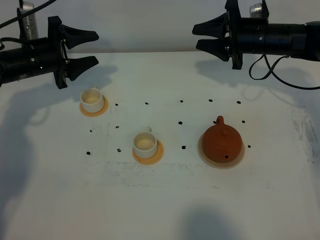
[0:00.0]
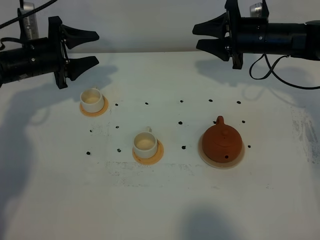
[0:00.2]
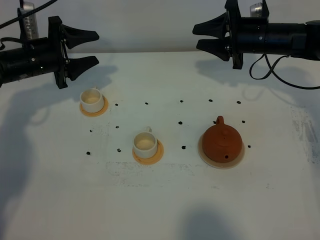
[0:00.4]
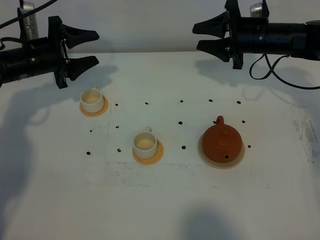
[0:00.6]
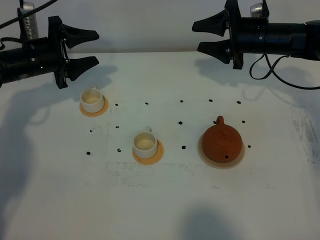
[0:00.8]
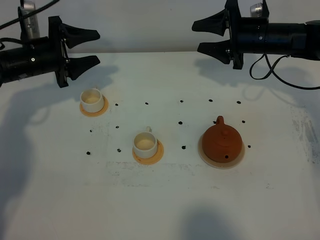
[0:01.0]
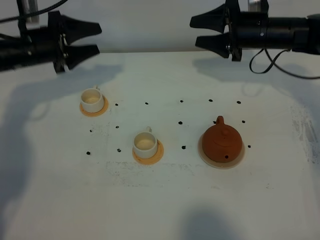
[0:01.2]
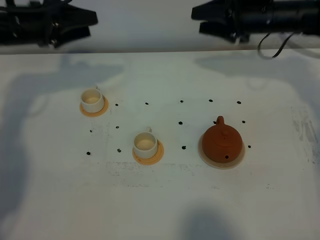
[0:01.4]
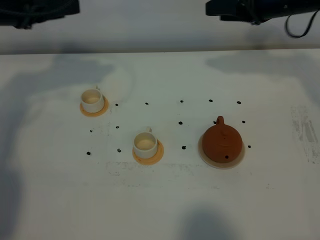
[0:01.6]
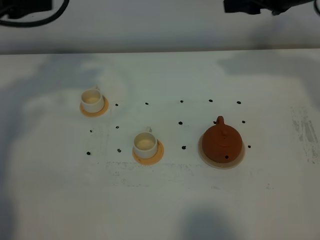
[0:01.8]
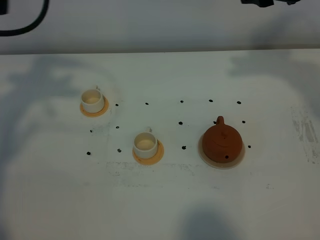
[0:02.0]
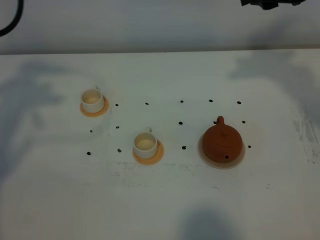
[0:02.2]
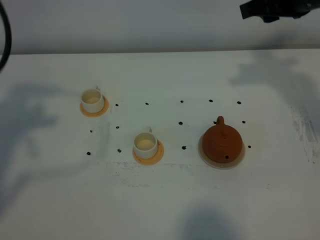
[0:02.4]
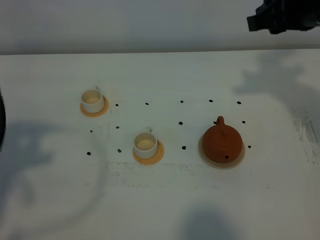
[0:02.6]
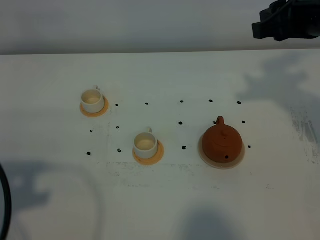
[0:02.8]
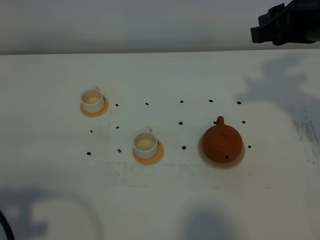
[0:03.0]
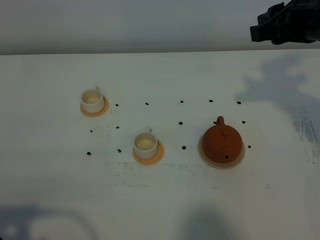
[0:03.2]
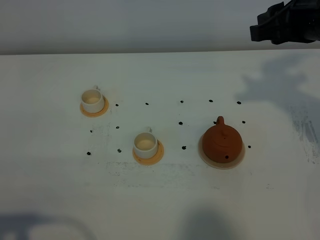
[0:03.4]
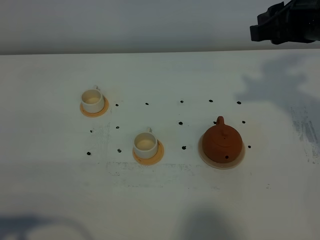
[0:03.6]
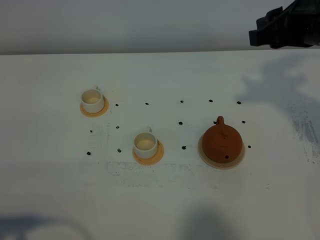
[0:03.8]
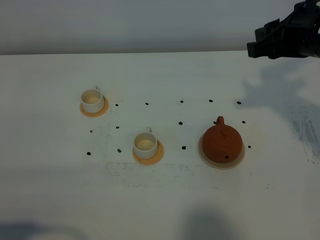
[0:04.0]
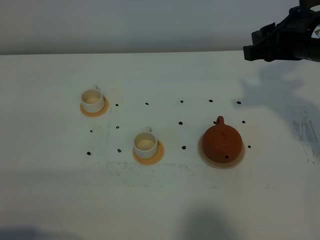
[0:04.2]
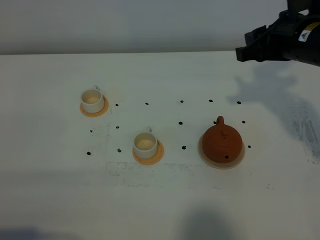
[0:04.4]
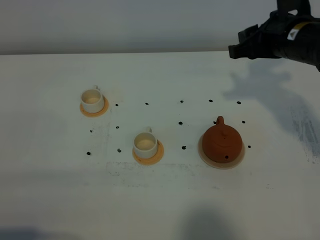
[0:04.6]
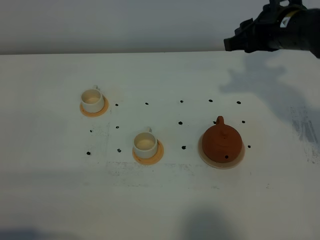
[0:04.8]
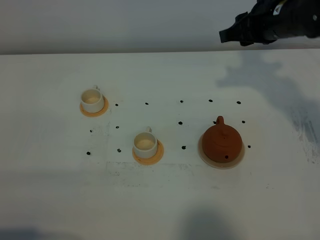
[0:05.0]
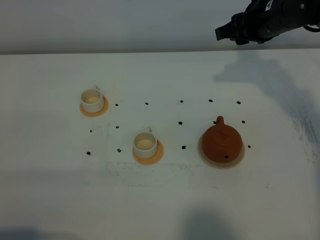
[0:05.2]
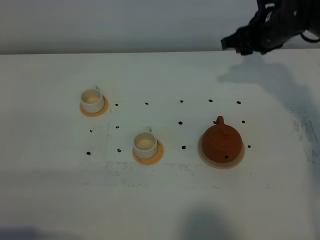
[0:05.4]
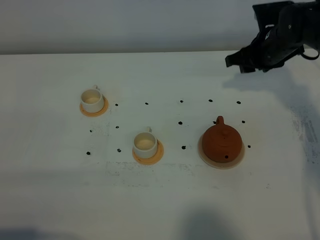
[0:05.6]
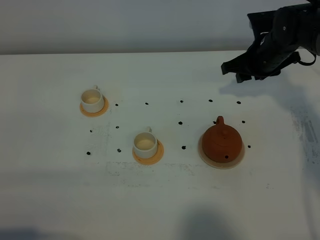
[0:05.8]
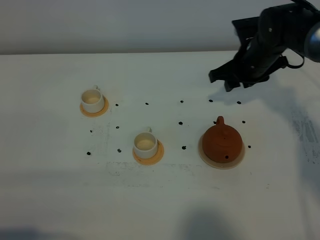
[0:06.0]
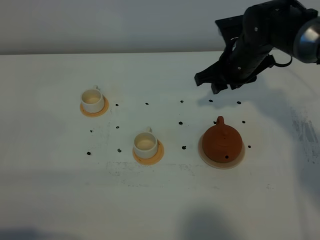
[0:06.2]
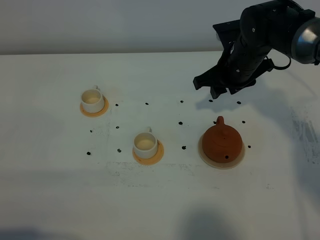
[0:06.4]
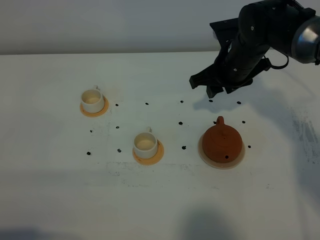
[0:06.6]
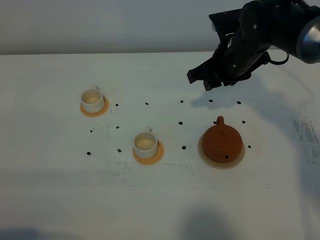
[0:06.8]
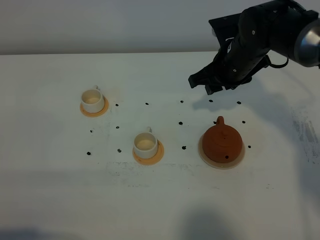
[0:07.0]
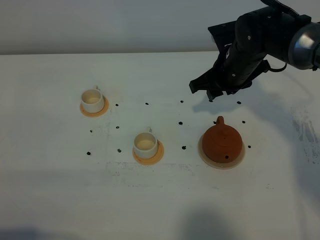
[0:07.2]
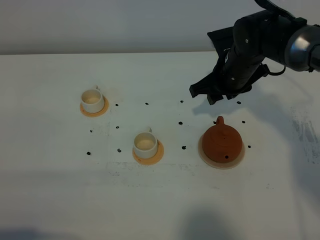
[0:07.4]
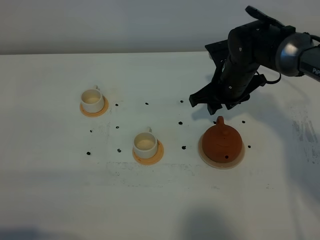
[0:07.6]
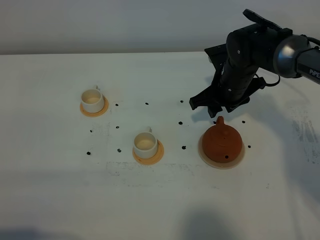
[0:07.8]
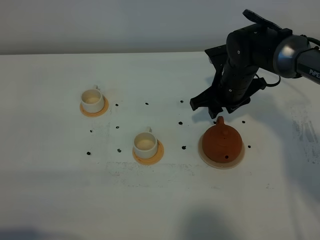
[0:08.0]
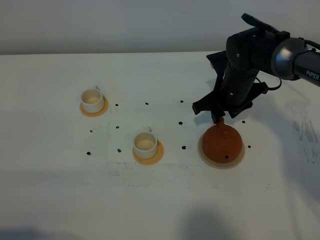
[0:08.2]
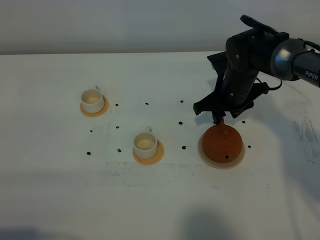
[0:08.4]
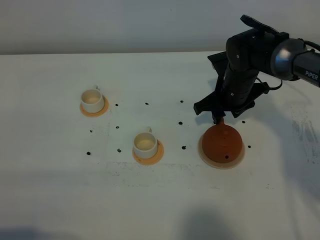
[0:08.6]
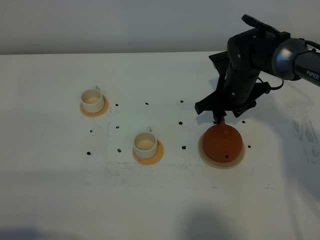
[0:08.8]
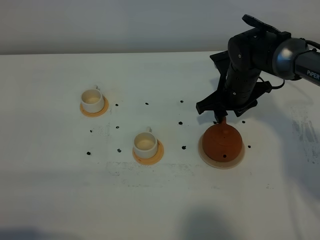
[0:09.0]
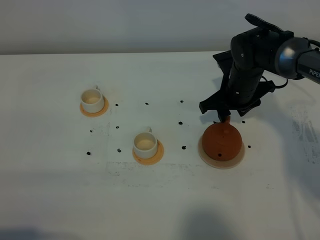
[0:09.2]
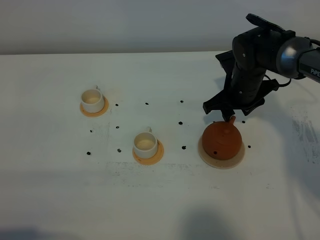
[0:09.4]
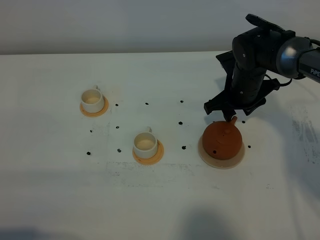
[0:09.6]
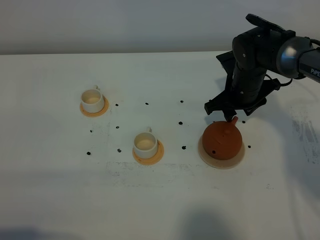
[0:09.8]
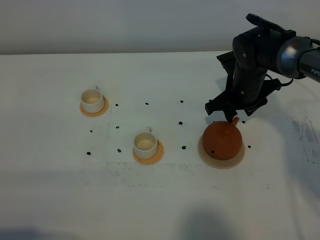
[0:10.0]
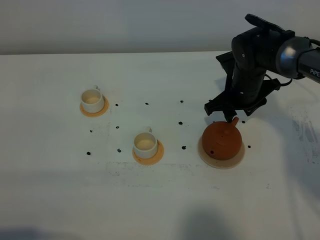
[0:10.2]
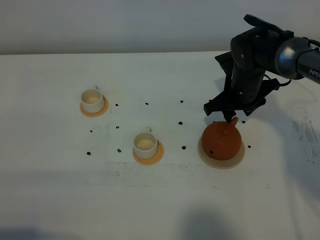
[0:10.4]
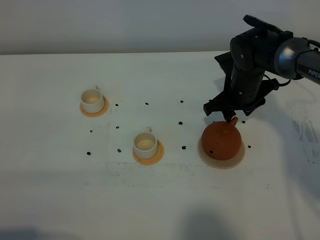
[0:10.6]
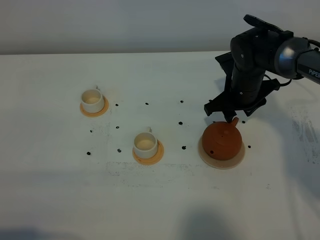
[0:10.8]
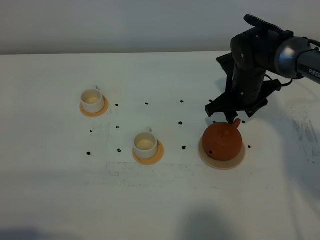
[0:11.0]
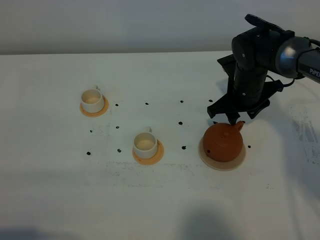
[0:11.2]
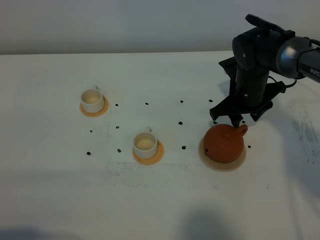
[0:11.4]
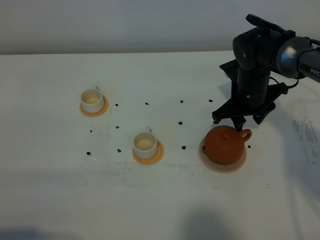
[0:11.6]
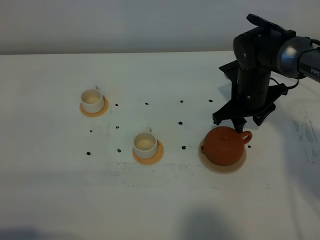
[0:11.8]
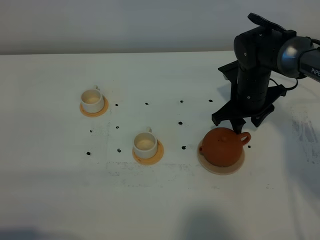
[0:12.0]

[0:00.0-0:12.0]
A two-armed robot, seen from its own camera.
Task of the whole recording: grasp the brown teapot and pour the tea into the two white teacups one by one, put the brown teapot back in its original place.
0:00.0 to 0:01.6: Both grippers travel together upward, roughly 15 cm.
0:01.6 to 0:03.0: The left gripper heads backward, covering some 35 cm; the right gripper goes roughly 10 cm backward.
0:03.0 to 0:04.4: The left gripper moves some 5 cm, and closes. The right gripper moves downward, about 5 cm.
0:04.4 to 0:06.0: The right gripper heads downward and forward, covering about 15 cm.
0:06.0 to 0:07.6: The right gripper ends up approximately 5 cm from where it was.
0:07.6 to 0:09.0: The grippers stay close to where they were, moving slightly.
0:09.0 to 0:10.4: Both grippers stay put.
0:10.4 to 0:12.0: There are only small adjustments of the grippers.

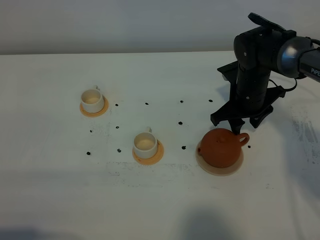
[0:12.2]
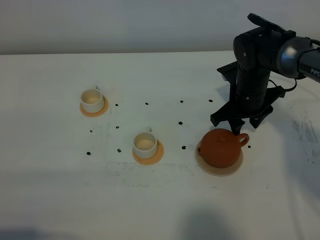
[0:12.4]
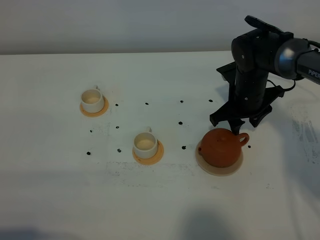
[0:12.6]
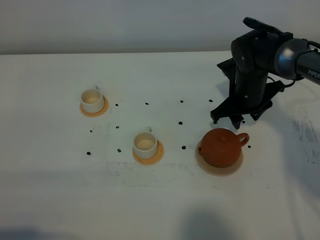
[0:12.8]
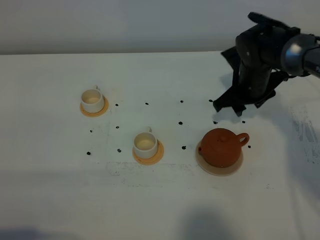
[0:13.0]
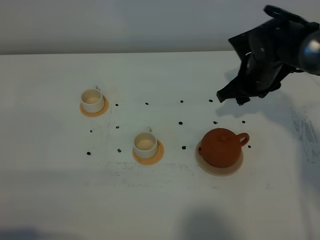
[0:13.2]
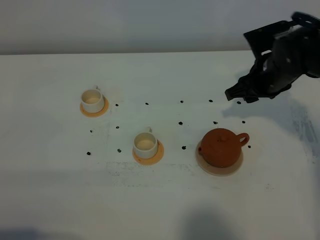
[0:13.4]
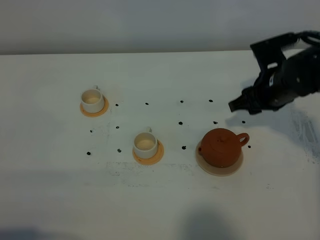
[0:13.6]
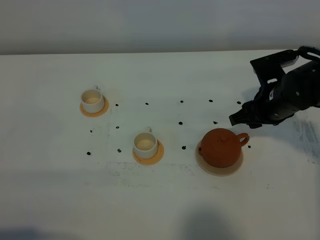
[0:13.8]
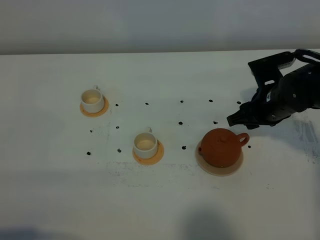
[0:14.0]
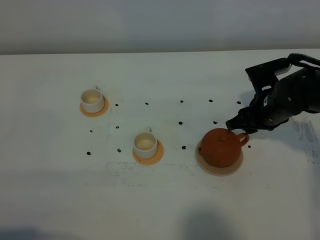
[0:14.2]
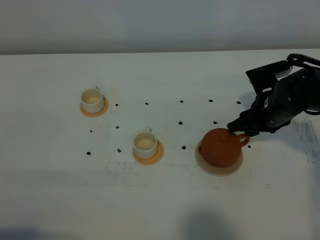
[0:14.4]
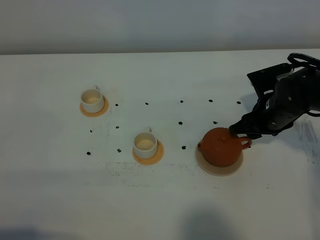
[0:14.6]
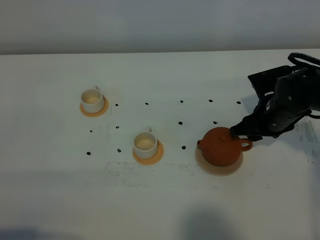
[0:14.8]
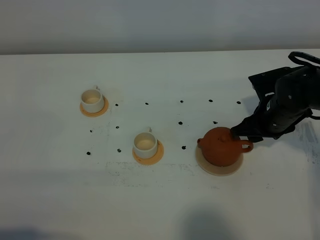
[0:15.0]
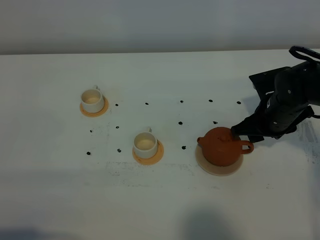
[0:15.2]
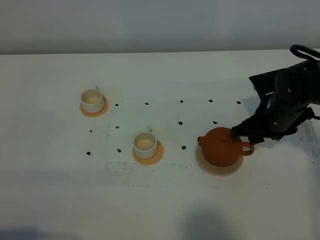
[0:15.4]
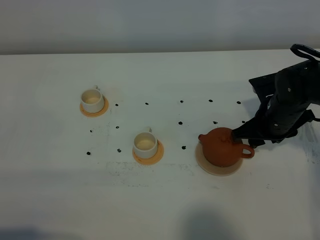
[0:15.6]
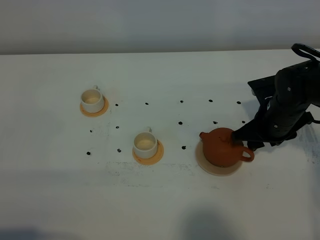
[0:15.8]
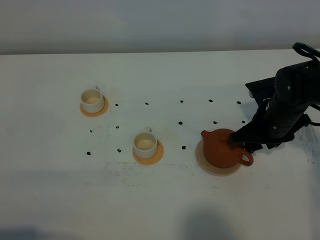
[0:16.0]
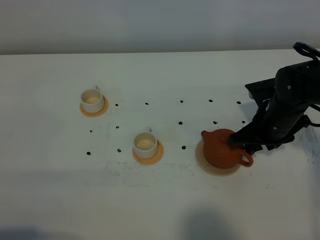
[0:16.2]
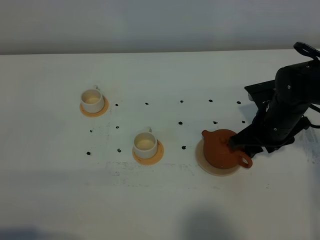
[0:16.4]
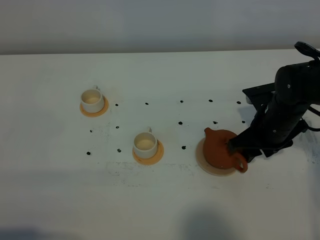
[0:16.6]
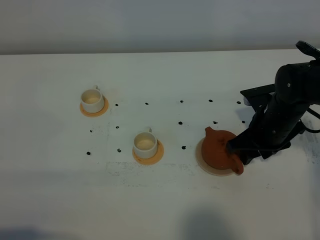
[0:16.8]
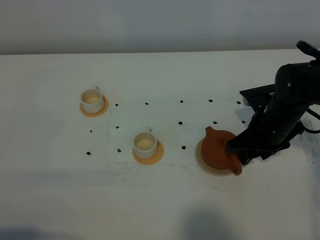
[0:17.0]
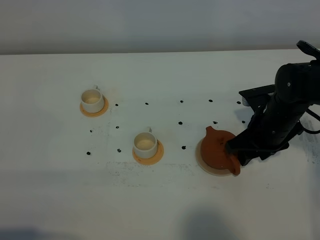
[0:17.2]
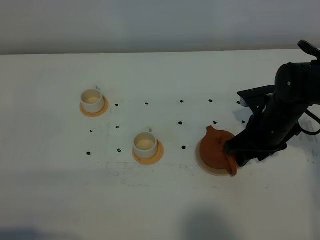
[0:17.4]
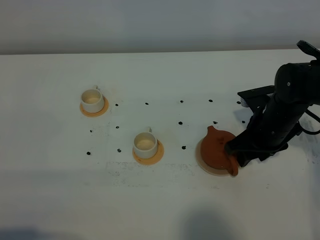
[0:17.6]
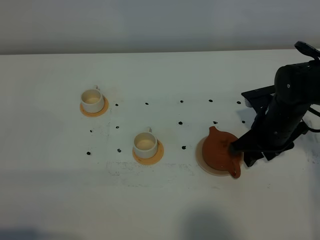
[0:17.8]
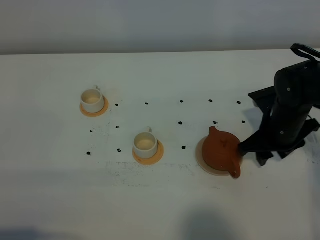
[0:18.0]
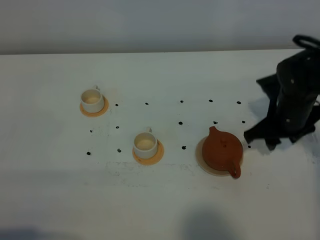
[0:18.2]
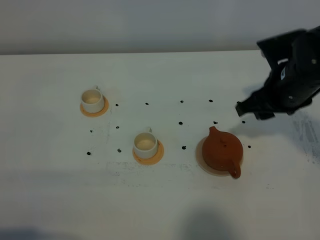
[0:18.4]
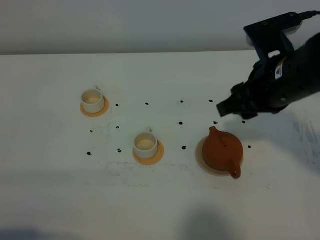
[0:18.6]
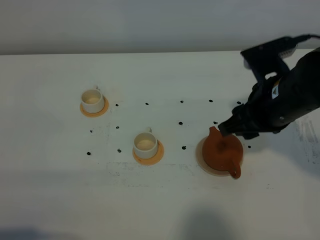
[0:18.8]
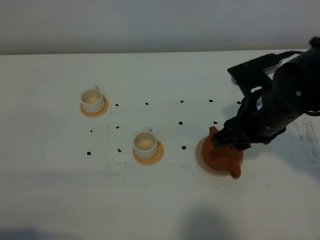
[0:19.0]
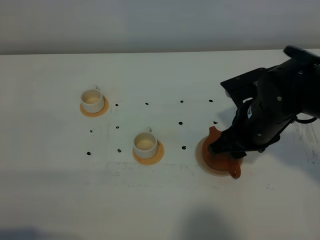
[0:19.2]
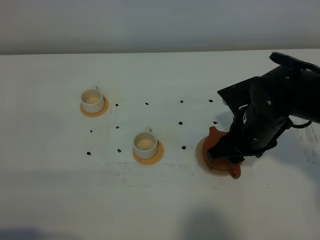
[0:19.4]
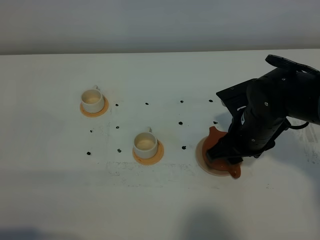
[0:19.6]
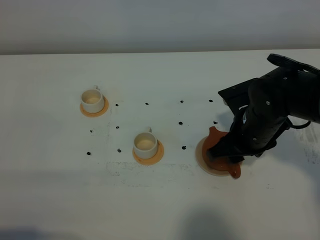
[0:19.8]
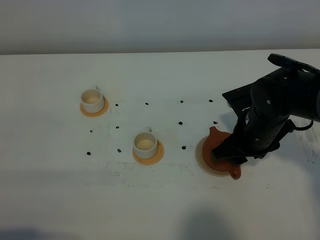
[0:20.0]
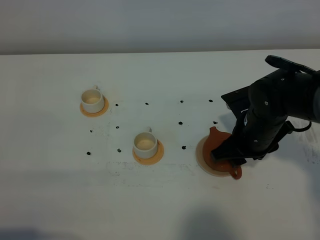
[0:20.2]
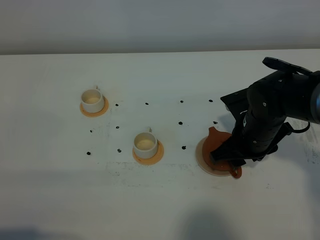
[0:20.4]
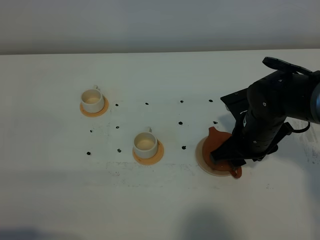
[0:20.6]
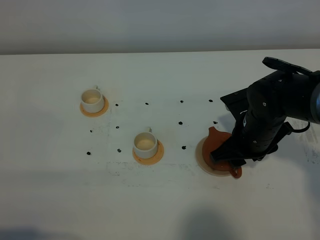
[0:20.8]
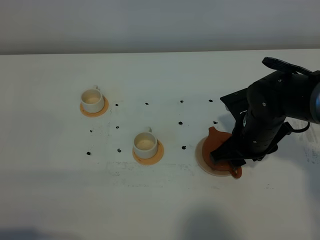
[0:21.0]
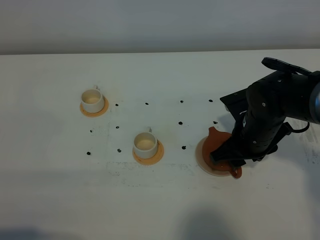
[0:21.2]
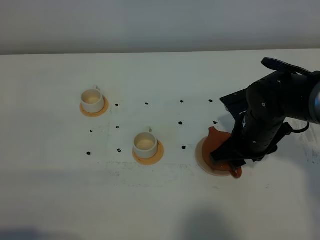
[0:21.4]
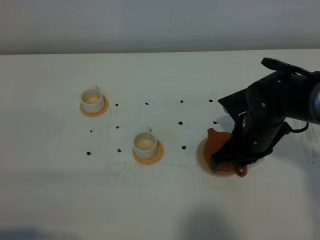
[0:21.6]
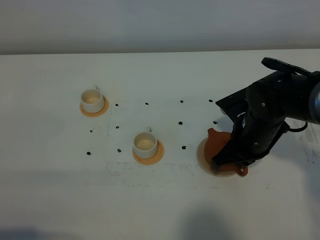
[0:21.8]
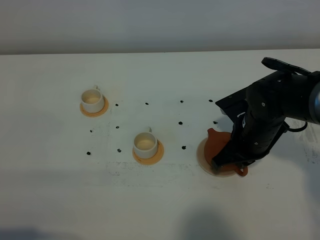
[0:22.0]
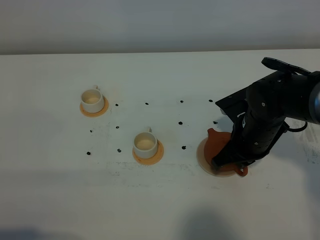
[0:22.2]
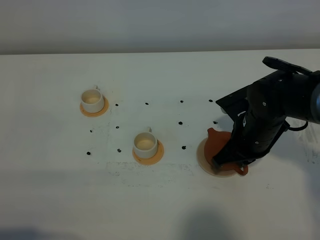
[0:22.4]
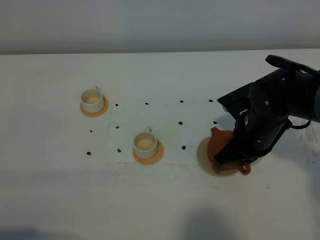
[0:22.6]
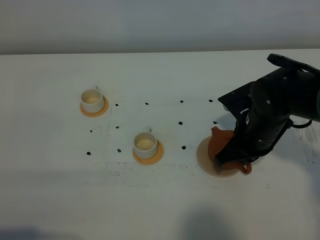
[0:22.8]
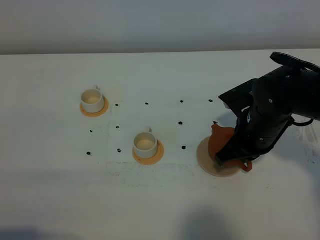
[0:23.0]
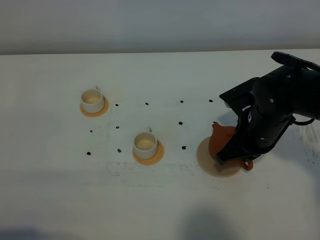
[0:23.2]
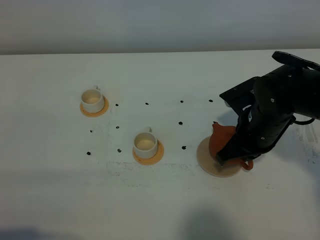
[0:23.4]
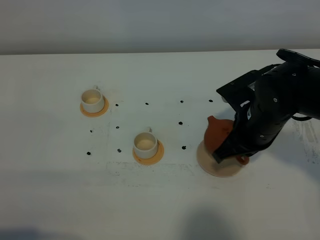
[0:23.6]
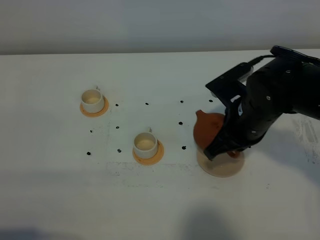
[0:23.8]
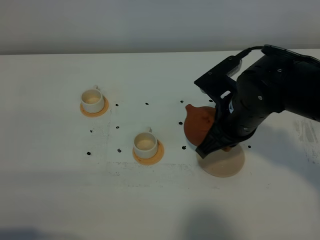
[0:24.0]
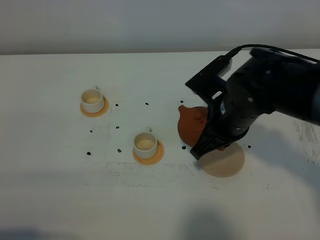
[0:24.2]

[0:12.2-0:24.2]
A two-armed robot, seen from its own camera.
Task of the whole recording: grasp the brown teapot and pour the tea into the two white teacups one by one, put the brown teapot back in its original place.
Step, 0:12.2 to 0:23.0: Pick up the teapot with the right gripper.
0:12.2 to 0:13.8: The right gripper moves approximately 5 cm.
0:13.8 to 0:15.2: The grippers make only small movements.
0:15.2 to 0:18.2: The grippers stay close to where they were, moving slightly.
0:18.2 to 0:19.8: The right gripper moves to the left, some 5 cm, and travels upward and back again, some 10 cm each way.
0:19.8 to 0:21.2: The grippers move only a little.
0:21.2 to 0:22.6: The right gripper closes.
0:22.6 to 0:24.2: The right gripper shifts roughly 5 cm to the left and upward.
